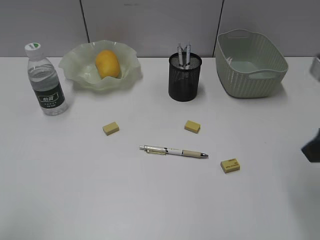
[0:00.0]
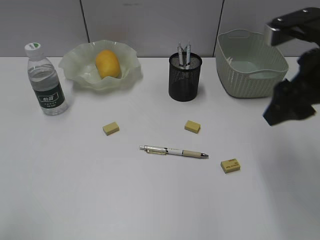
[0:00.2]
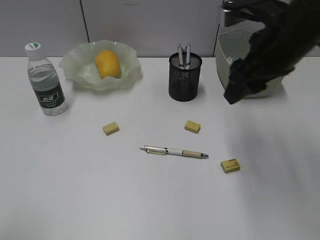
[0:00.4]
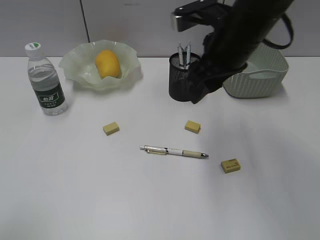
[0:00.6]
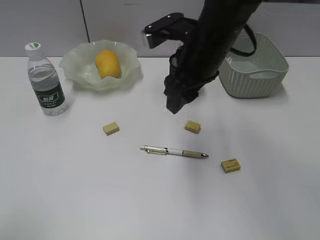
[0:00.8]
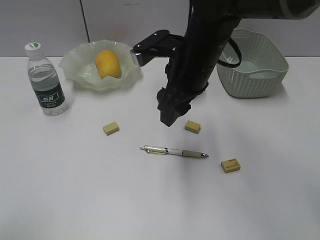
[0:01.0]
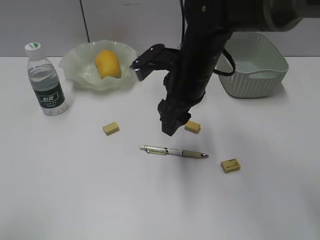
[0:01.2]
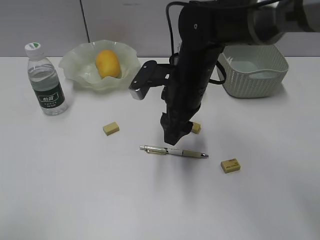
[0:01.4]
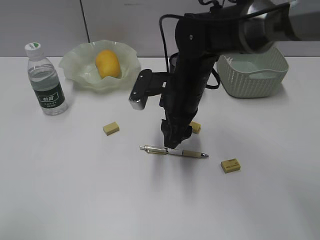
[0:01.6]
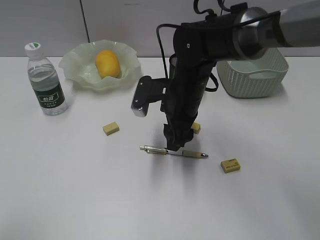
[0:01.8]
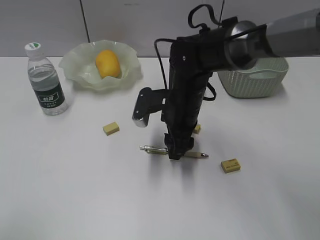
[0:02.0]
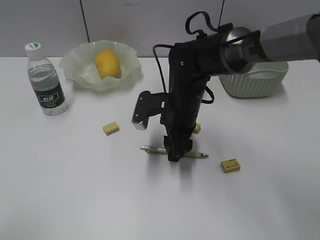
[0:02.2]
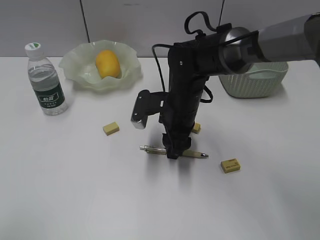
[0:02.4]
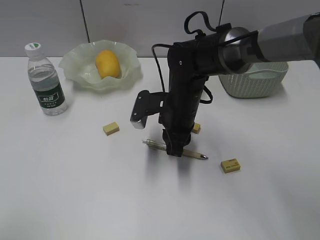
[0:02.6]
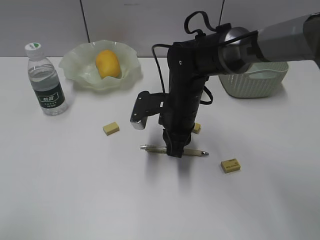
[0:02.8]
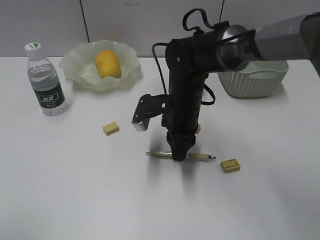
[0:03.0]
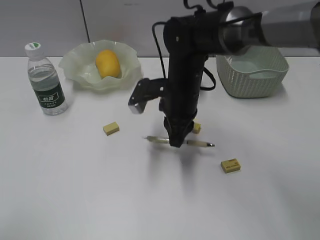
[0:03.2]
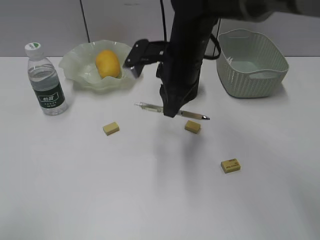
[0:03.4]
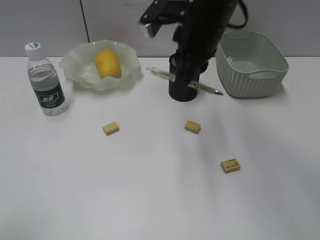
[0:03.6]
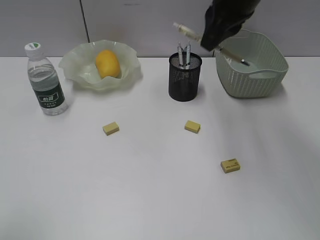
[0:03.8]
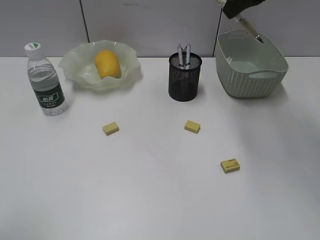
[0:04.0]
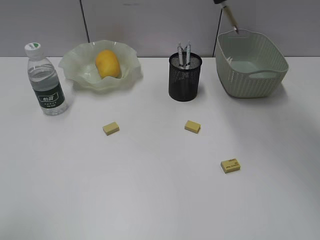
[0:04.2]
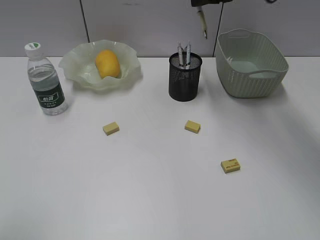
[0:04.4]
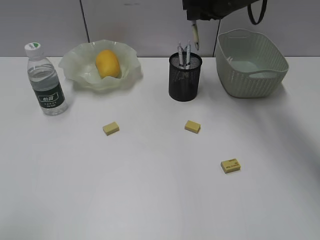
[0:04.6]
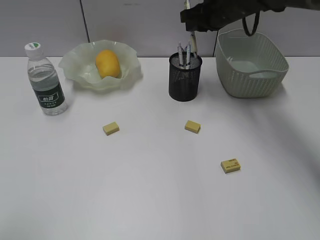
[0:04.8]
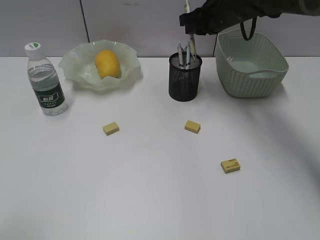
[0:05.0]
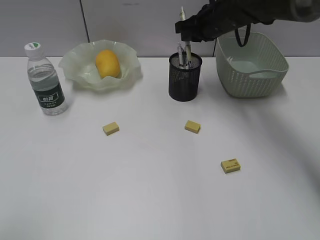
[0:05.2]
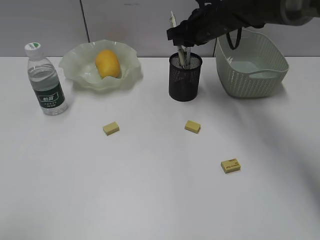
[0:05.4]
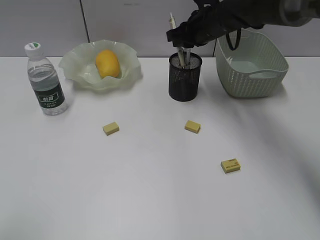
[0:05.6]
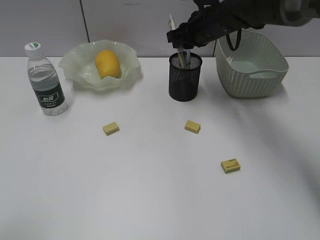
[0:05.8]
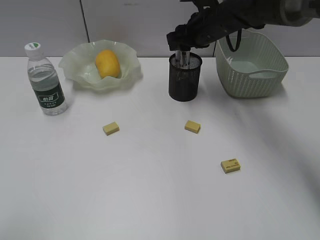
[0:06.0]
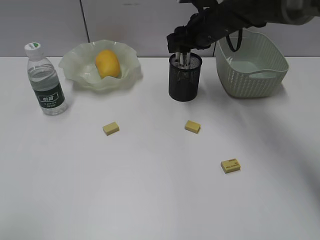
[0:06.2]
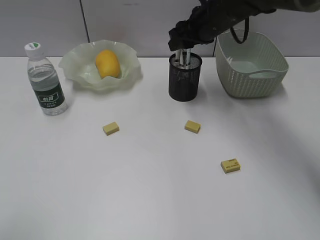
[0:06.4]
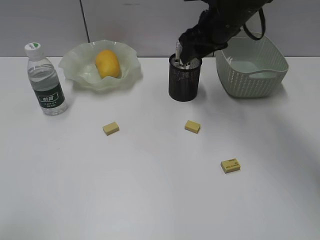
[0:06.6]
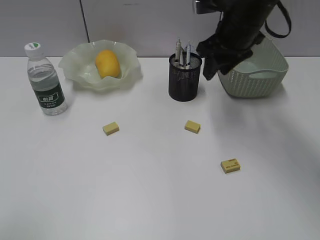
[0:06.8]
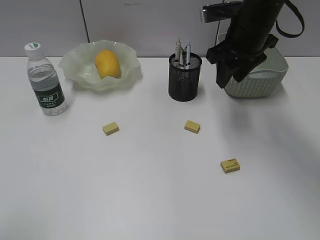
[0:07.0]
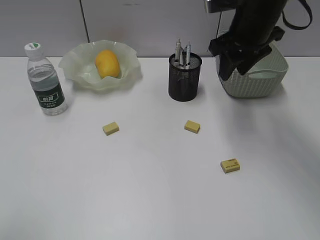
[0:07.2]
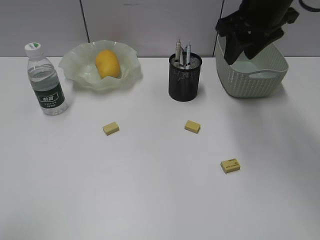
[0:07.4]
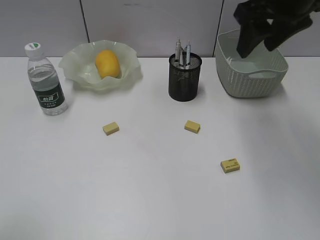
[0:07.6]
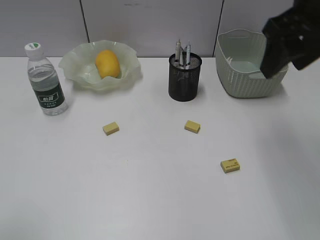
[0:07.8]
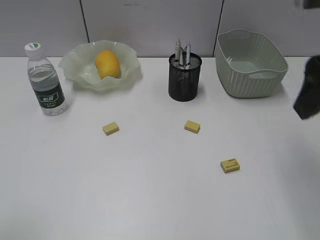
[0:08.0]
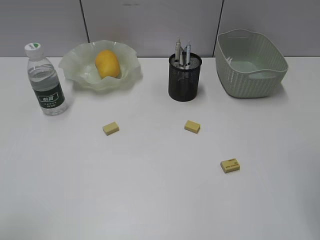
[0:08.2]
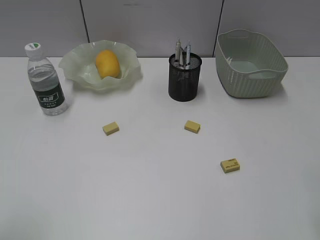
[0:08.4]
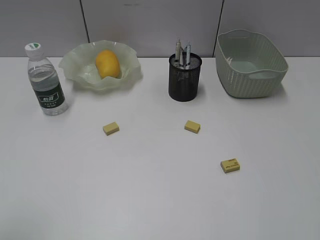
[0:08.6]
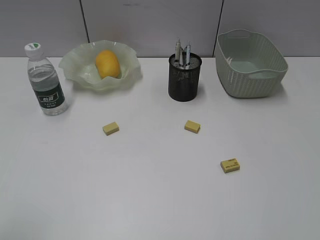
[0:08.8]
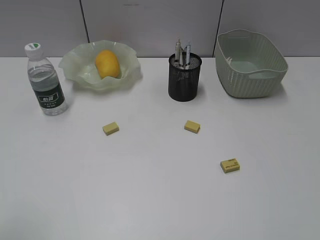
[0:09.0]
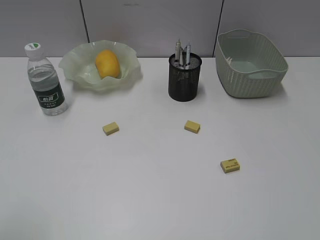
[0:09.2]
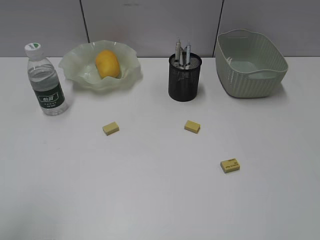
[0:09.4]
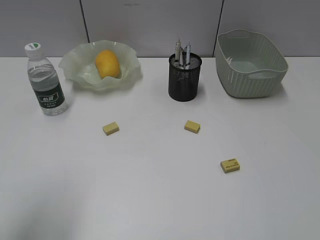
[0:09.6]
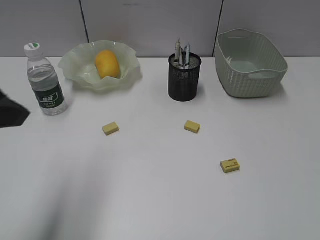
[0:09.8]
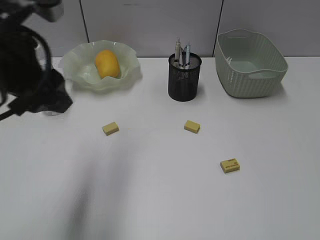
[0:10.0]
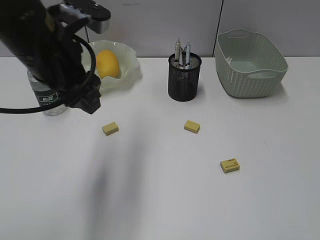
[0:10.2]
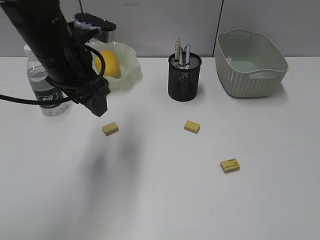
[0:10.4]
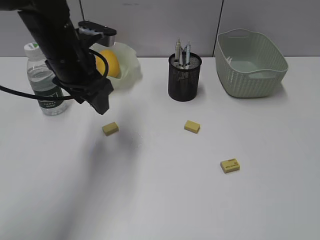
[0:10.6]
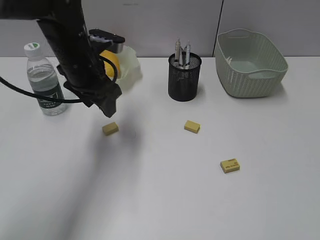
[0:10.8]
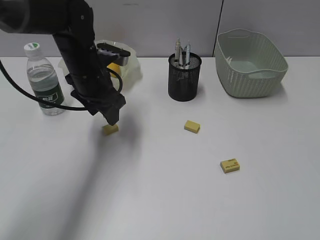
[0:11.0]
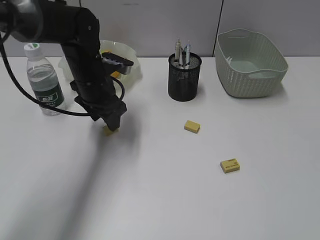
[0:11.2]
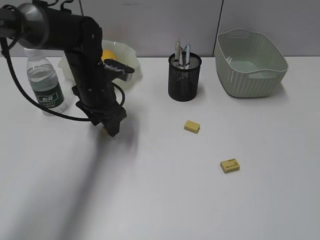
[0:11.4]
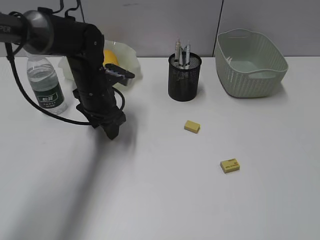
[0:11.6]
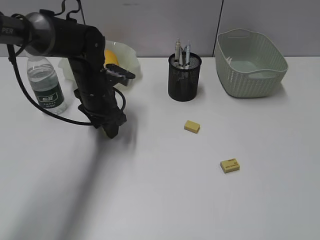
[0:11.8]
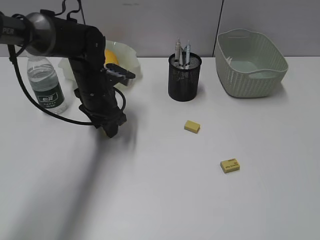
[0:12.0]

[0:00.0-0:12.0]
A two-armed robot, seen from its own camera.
Step, 0:00.0 to 0:02.8: Grasp the yellow pen with right gripper.
Step, 0:03.0 to 0:06.0: Place the yellow pen in pen holder with right gripper.
0:00.0 to 0:01.6: The left gripper opens its fingers. The right gripper moves to the left, forward and downward, about 25 cm.
0:01.6 to 0:03.0: The right gripper closes up.
0:03.0 to 0:04.4: The right gripper heads upward, forward and to the right, covering about 25 cm.
0:04.4 to 0:06.0: The right gripper travels downward by roughly 10 cm, and opens up.
0:06.0 to 0:07.6: The right gripper travels upward, backward and to the right by roughly 20 cm.
0:07.6 to 0:09.0: The right gripper shifts approximately 30 cm backward.
0:09.0 to 0:10.4: The left gripper moves forward and to the right, approximately 30 cm.
0:10.4 to 0:12.0: The left gripper shifts roughly 15 cm downward and forward.

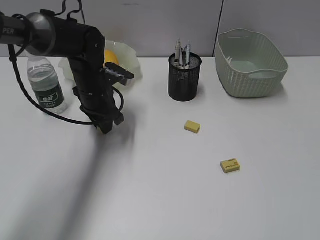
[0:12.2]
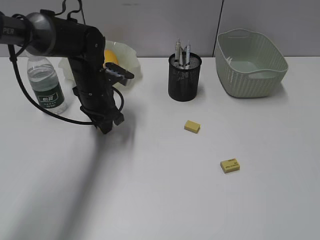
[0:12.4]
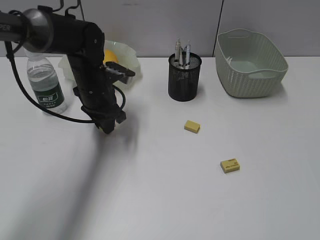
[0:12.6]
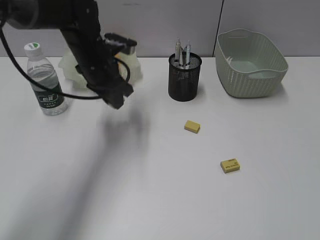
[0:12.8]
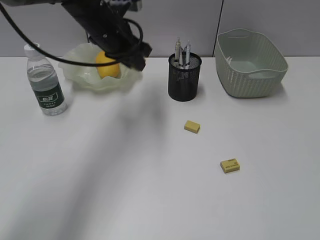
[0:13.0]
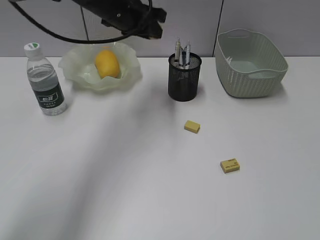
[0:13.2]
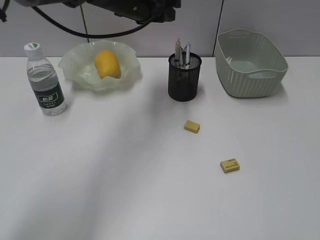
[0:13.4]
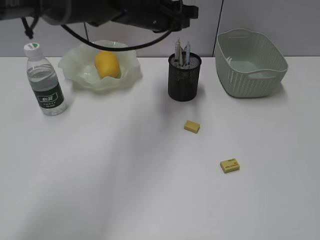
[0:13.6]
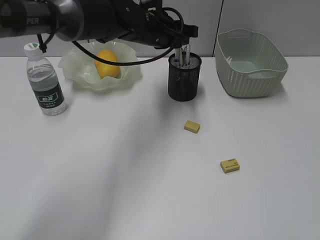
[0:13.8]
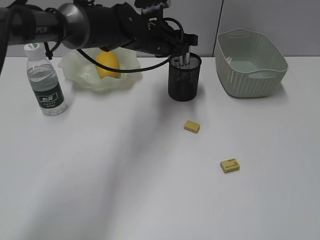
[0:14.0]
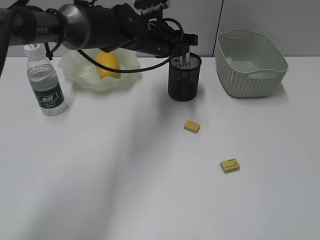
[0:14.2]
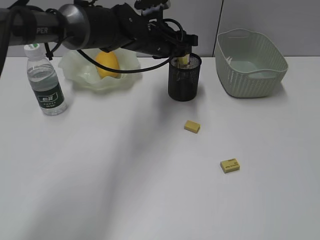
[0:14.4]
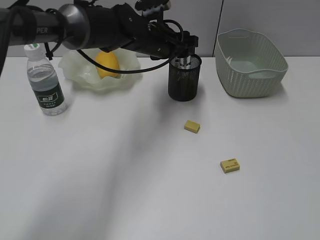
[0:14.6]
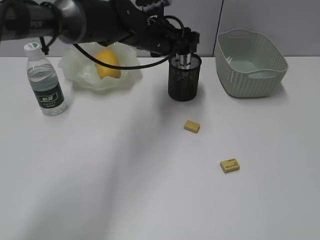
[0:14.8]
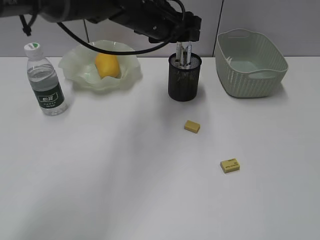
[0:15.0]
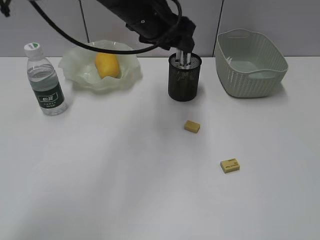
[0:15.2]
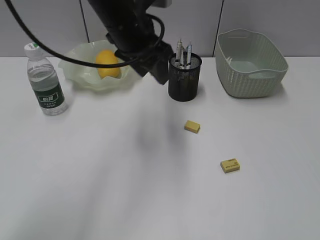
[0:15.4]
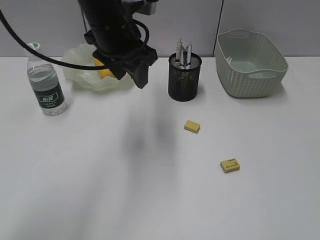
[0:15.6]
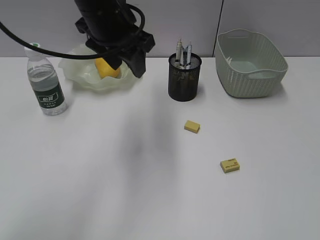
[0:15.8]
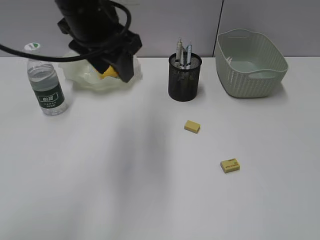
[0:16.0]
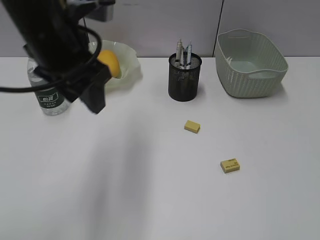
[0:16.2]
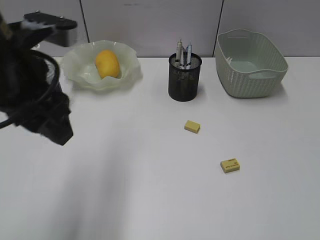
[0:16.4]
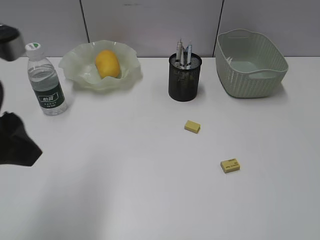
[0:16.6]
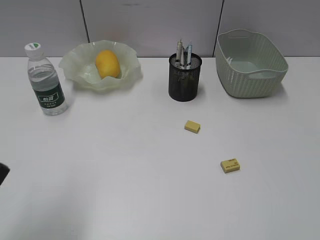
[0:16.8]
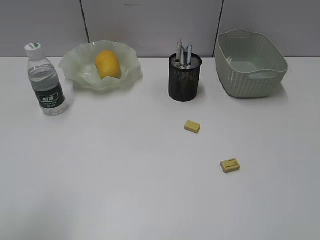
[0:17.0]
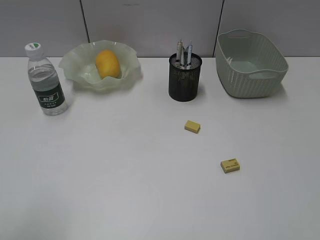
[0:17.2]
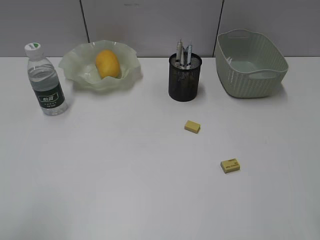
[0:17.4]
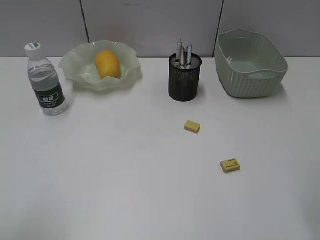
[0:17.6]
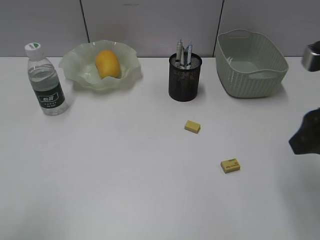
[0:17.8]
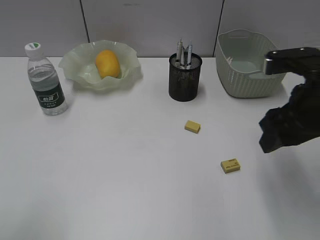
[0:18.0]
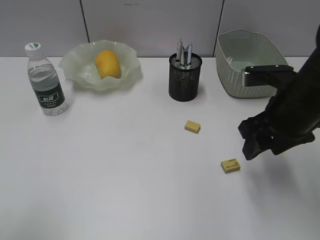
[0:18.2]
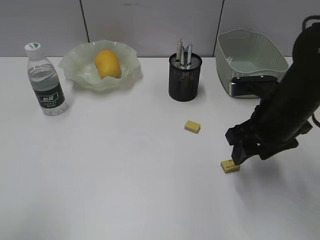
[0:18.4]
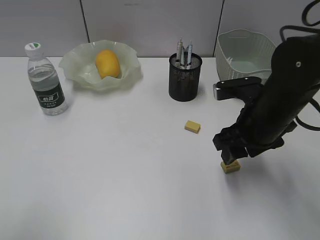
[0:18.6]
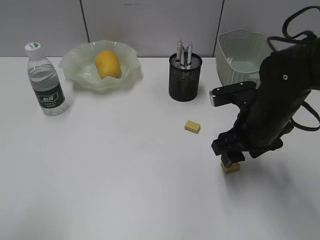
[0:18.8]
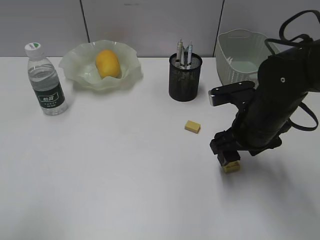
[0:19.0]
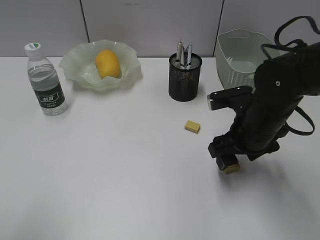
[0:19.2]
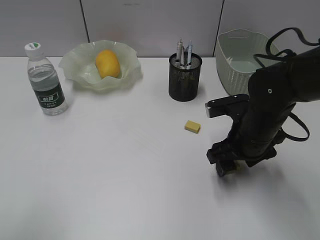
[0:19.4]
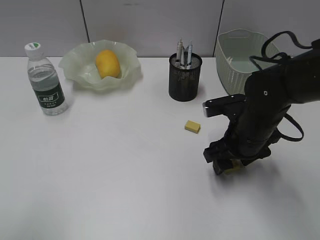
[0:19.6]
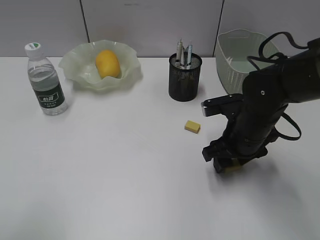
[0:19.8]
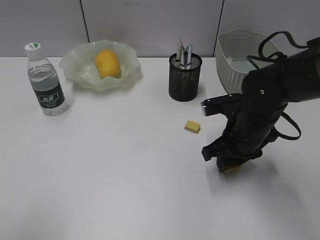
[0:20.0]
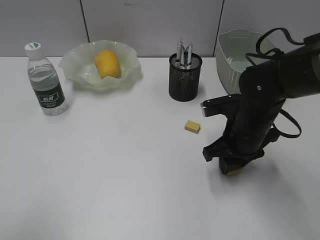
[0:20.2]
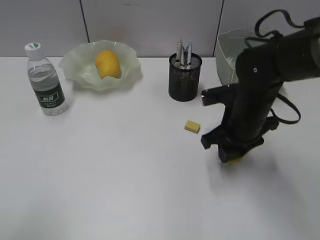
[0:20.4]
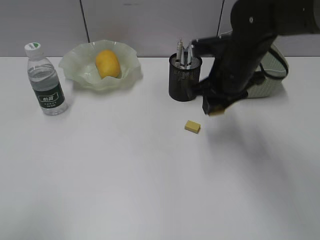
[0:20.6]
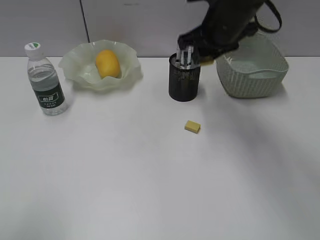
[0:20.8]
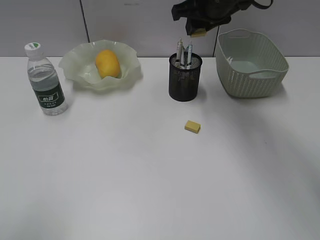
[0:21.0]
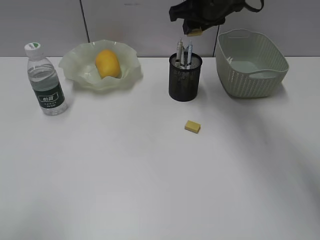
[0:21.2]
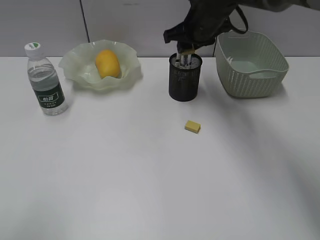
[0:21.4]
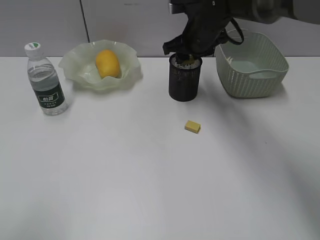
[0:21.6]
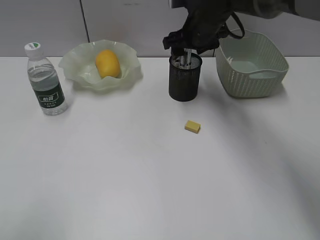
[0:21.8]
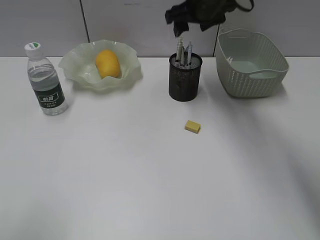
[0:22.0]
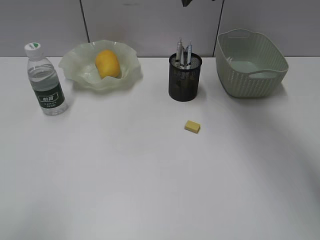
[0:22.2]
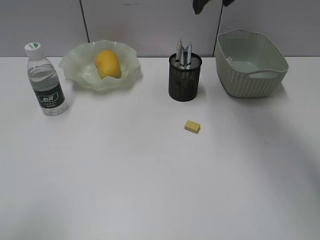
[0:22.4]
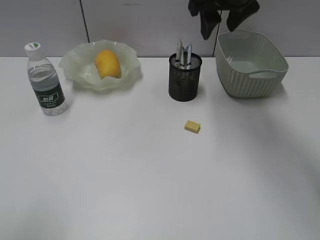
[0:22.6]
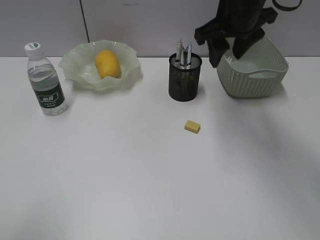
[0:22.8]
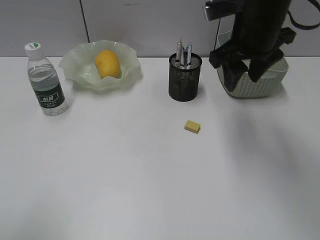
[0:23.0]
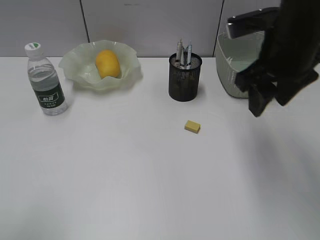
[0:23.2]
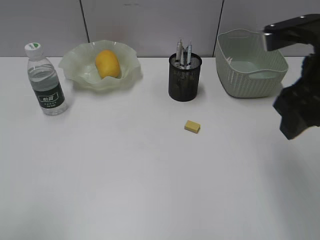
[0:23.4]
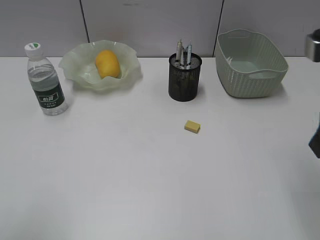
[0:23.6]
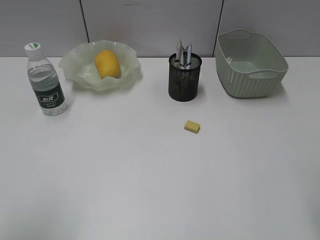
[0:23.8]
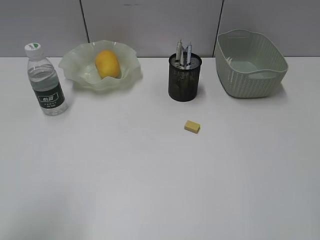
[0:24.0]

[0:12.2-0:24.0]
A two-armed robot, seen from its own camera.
Step, 0:12.4 to 0:14.4: Place the eraser in pen holder with left gripper.
Step, 0:14.6 to 0:20.0: Grasp the eraser with right gripper.
Step, 0:20.2 to 0:21.8: Place the eraser in pen holder with right gripper.
0:12.2 to 0:13.6: The left gripper travels upward and to the right by some 15 cm.
0:13.6 to 0:15.2: The left gripper reaches approximately 5 cm downward, then returns, and opens up.
0:15.2 to 0:16.6: The left gripper is displaced backward and to the left by about 30 cm.
0:16.6 to 0:18.2: The left gripper shifts some 15 cm backward and to the left, while the right gripper goes some 25 cm forward, to the left and downward.
0:18.2 to 0:19.6: The right gripper shifts about 10 cm downward.
0:19.6 to 0:21.0: The right gripper shifts some 20 cm upward and forward, and closes.
0:21.0 to 0:22.6: The right gripper travels downward and back again, roughly 10 cm each way, and opens up.
0:22.6 to 0:24.0: The right gripper is displaced backward and to the right by some 35 cm.
